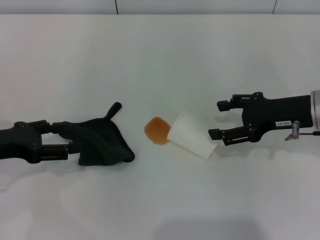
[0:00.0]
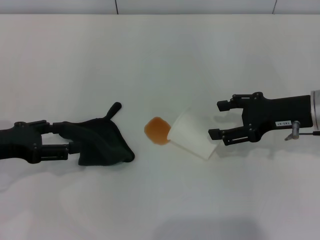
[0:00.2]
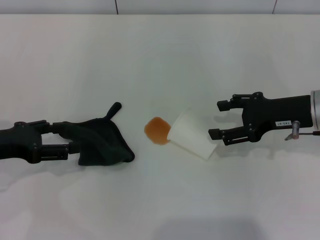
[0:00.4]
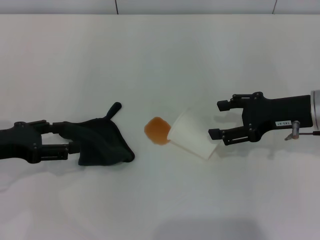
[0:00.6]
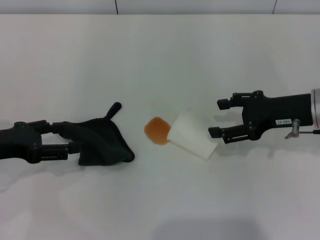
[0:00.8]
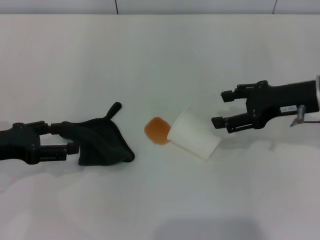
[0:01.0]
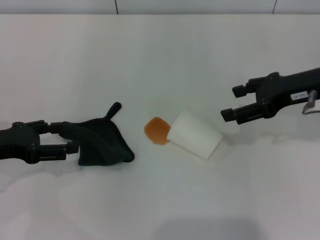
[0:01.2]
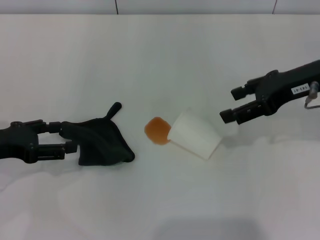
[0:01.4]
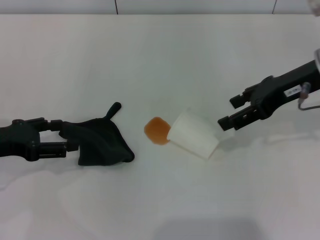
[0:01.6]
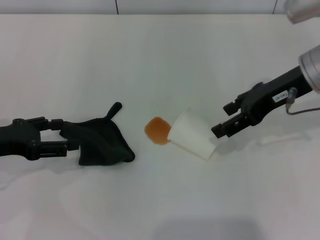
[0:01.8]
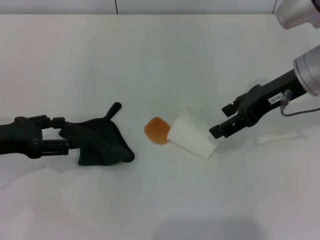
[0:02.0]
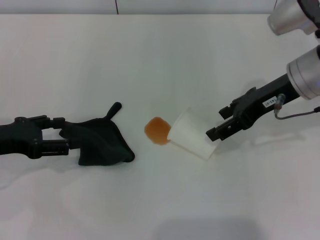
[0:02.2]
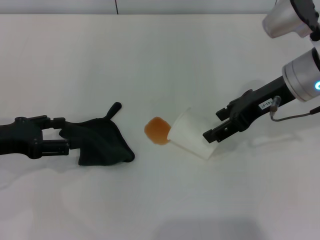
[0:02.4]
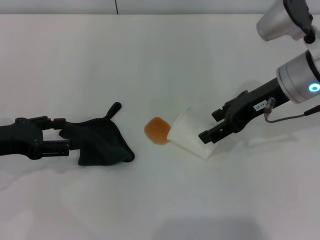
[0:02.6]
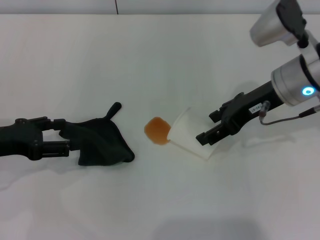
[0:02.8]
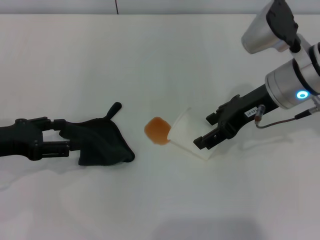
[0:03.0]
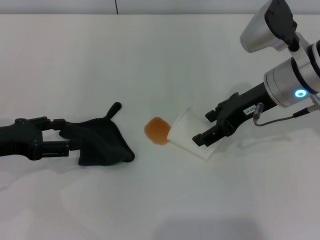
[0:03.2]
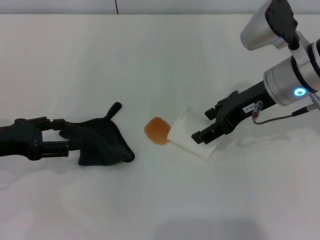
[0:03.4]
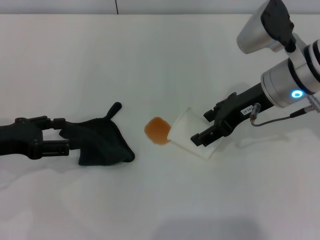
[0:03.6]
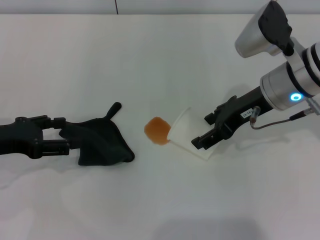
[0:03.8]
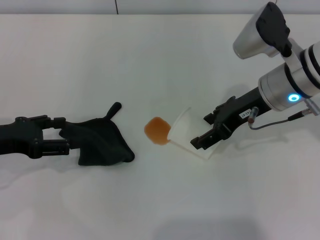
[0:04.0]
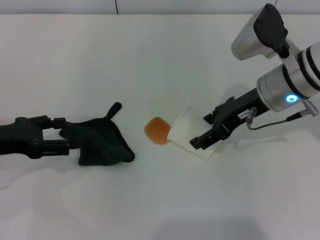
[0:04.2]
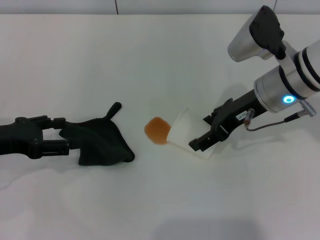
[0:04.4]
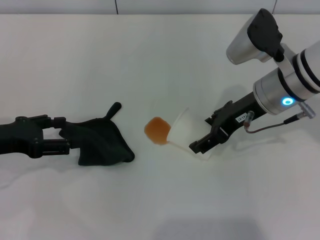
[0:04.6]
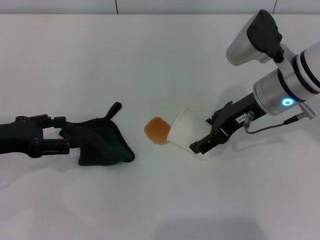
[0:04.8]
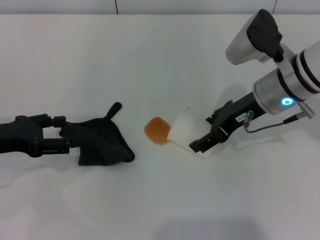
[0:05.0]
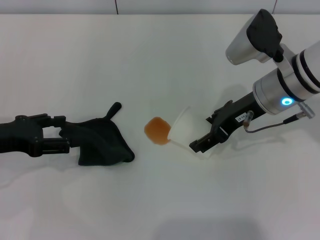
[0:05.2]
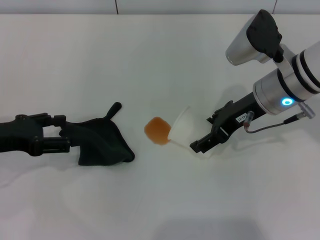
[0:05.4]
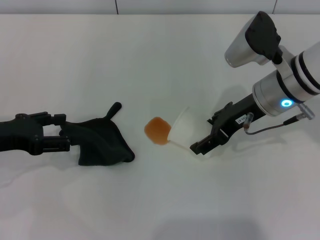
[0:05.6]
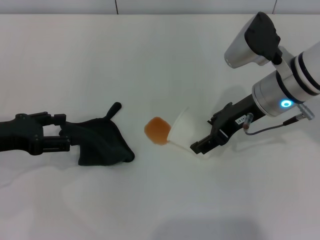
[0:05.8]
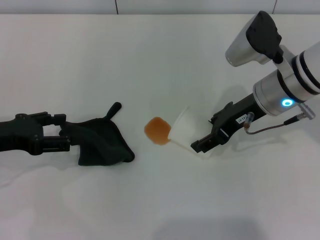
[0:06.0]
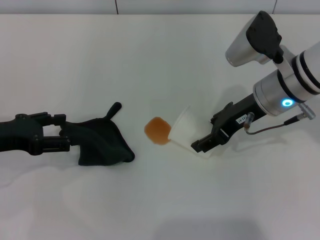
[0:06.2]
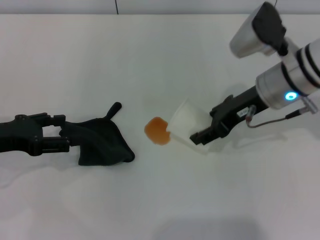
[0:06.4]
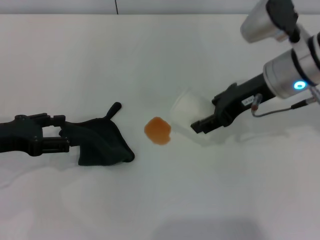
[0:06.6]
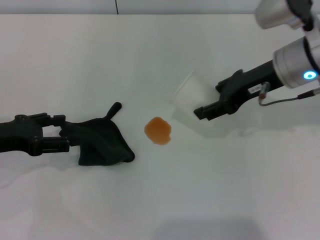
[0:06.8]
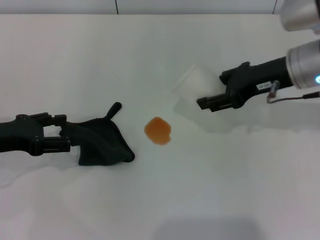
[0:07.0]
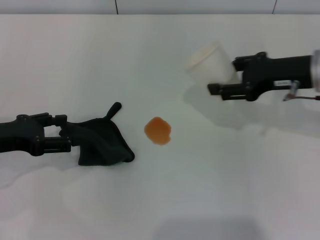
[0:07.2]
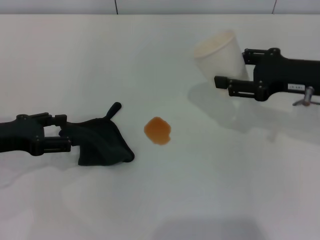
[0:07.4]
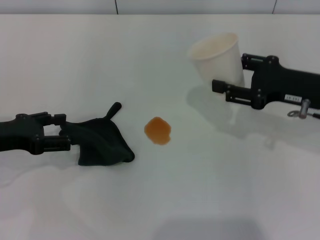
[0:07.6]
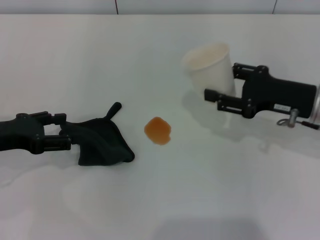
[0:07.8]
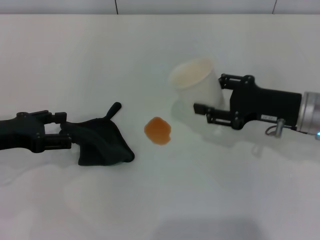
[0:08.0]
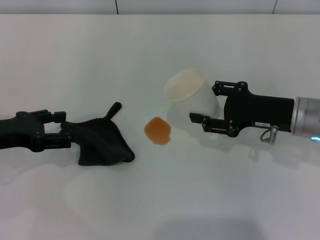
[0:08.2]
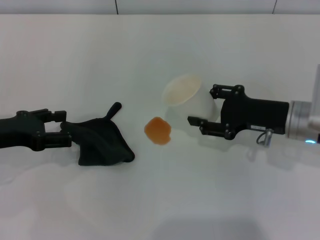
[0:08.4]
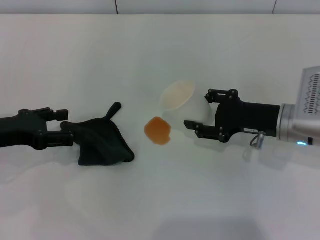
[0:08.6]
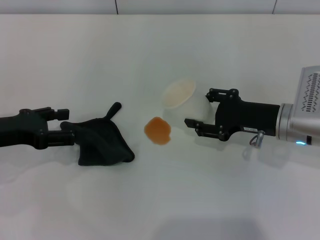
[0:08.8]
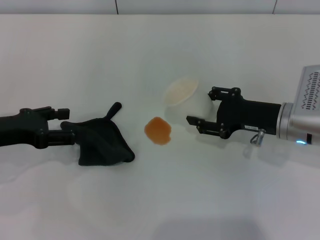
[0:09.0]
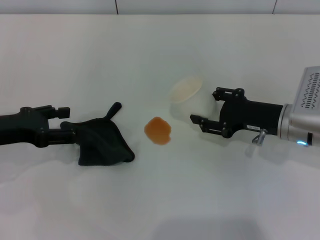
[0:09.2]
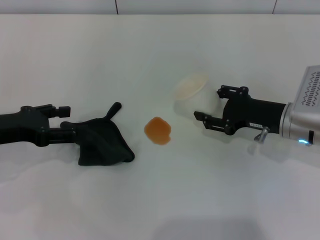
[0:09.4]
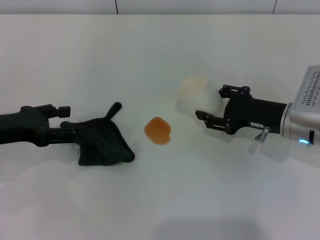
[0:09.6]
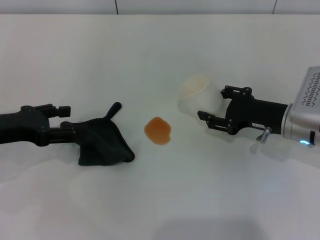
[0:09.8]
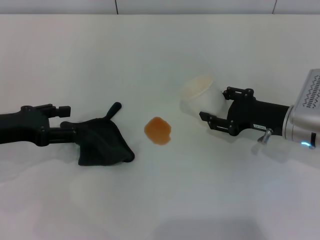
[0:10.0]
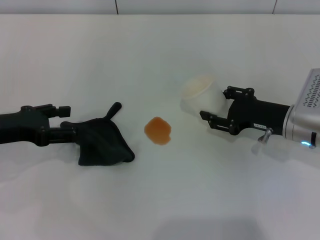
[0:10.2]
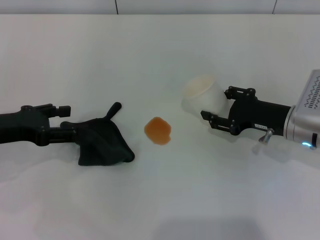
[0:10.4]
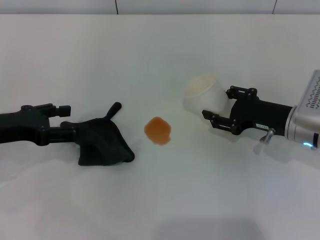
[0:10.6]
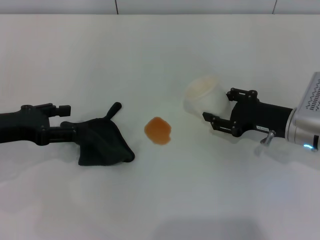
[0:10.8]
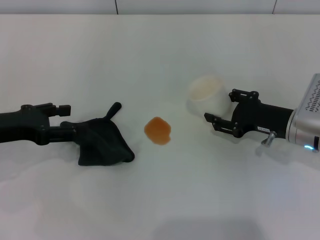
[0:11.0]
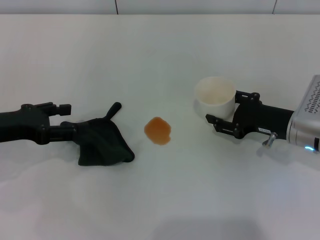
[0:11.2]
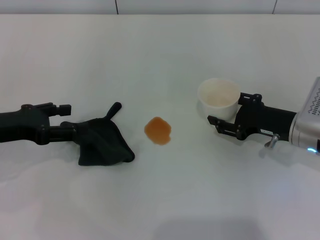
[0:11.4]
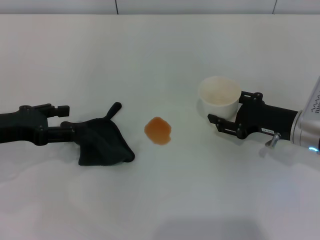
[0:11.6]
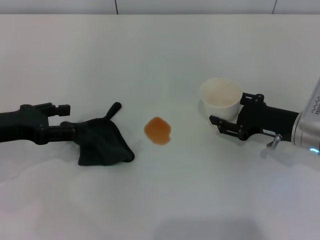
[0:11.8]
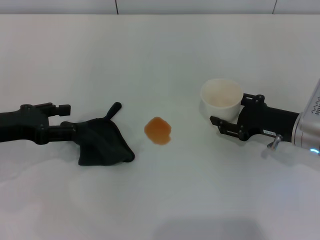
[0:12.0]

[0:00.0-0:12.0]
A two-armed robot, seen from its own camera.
Step, 0:00.0 to 0:05.8: Grasp the paper cup with the right gripper.
0:00.0 to 0:01.6: The right gripper travels upward by approximately 10 cm.
0:01.6 to 0:03.0: The right gripper goes about 5 cm to the left.
0:03.0 to 0:04.4: The grippers stay close to where they were, moving slightly.
0:04.4 to 0:06.0: The right gripper closes.
0:06.0 to 0:07.6: The right gripper travels to the right by some 10 cm, and closes up.
0:07.6 to 0:09.0: The right gripper travels downward by approximately 5 cm.
0:09.0 to 0:12.0: The grippers stay close to where they were, moving slightly.

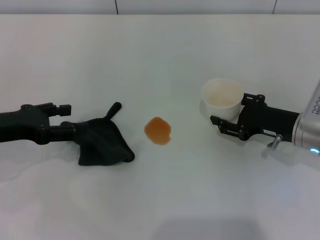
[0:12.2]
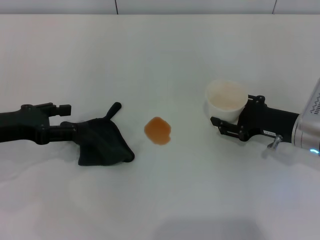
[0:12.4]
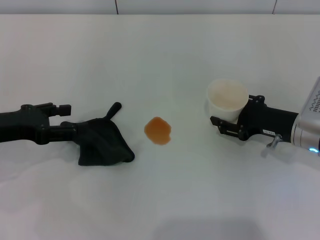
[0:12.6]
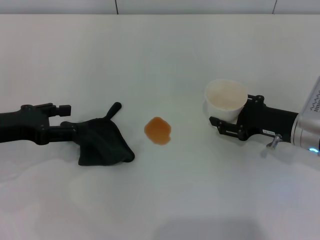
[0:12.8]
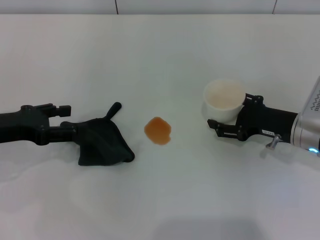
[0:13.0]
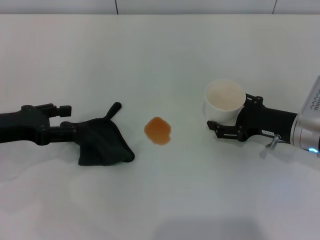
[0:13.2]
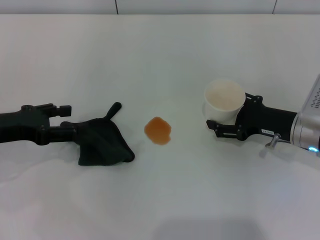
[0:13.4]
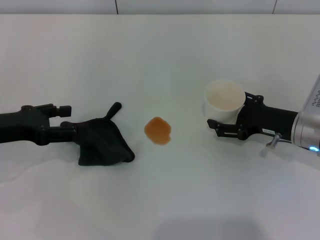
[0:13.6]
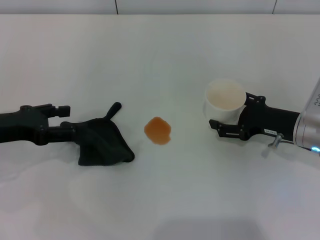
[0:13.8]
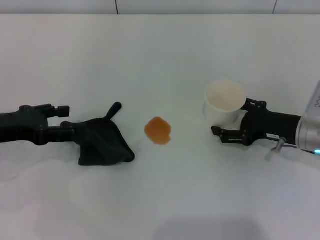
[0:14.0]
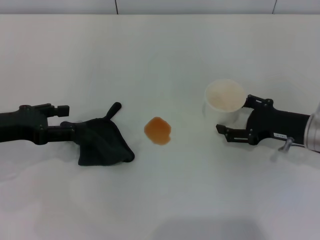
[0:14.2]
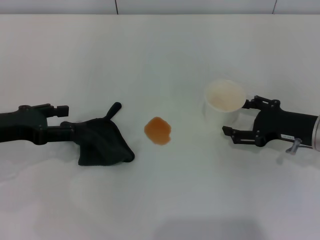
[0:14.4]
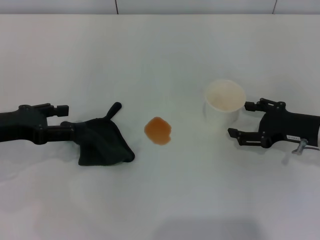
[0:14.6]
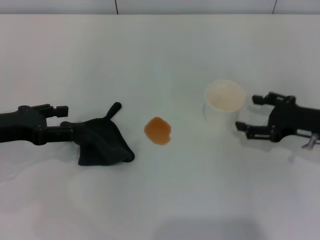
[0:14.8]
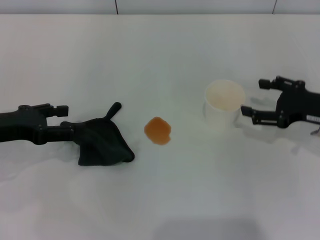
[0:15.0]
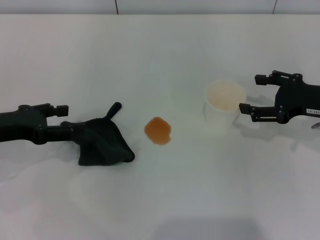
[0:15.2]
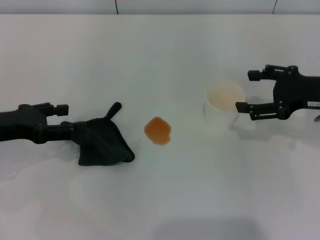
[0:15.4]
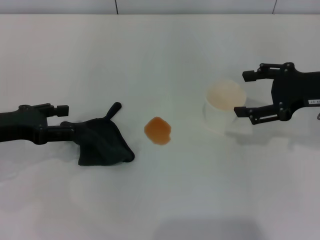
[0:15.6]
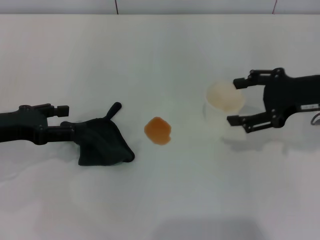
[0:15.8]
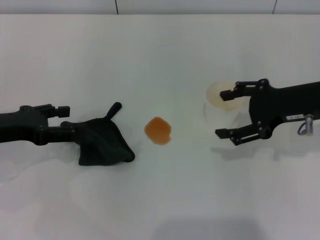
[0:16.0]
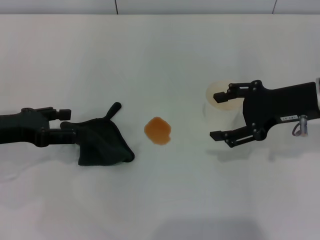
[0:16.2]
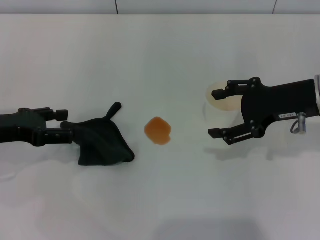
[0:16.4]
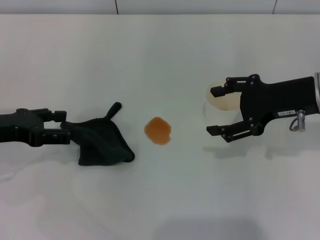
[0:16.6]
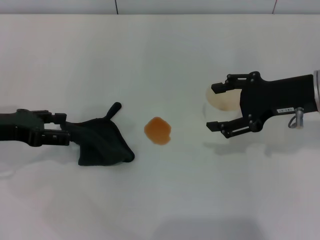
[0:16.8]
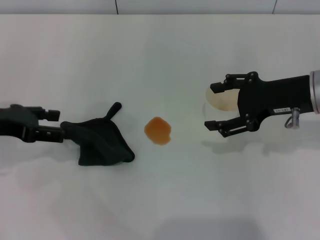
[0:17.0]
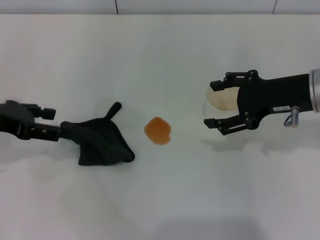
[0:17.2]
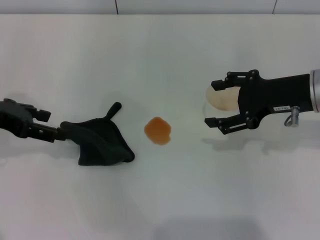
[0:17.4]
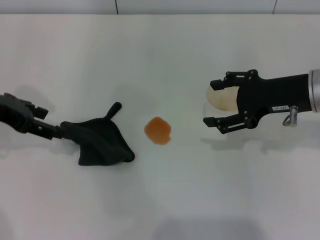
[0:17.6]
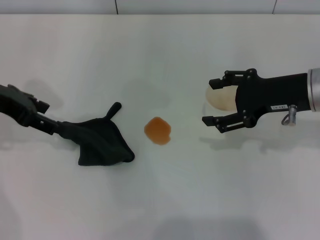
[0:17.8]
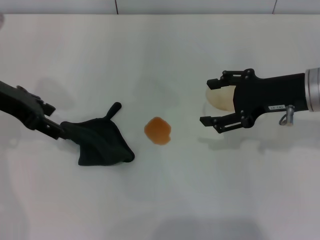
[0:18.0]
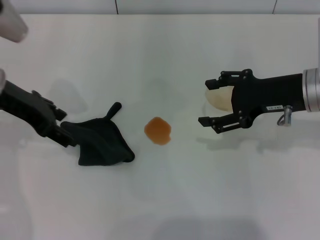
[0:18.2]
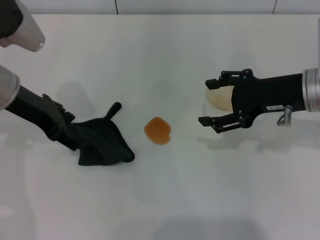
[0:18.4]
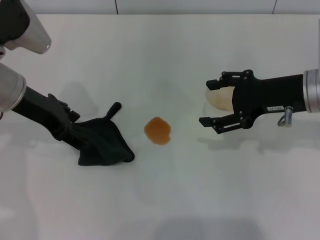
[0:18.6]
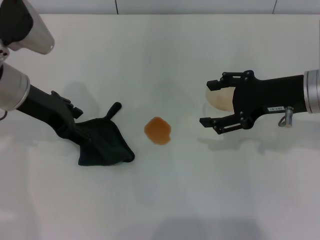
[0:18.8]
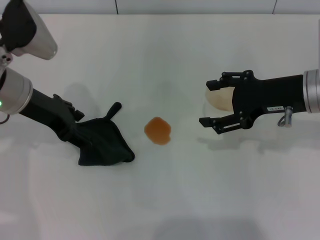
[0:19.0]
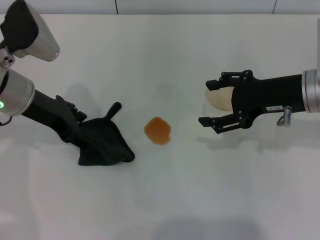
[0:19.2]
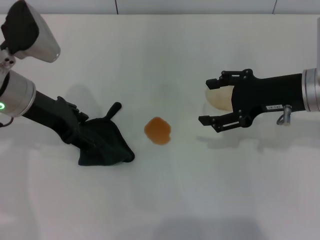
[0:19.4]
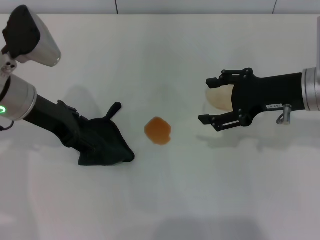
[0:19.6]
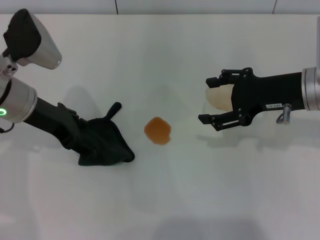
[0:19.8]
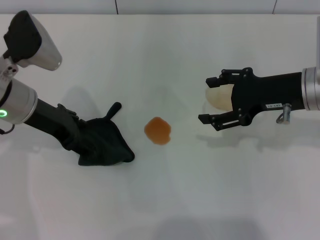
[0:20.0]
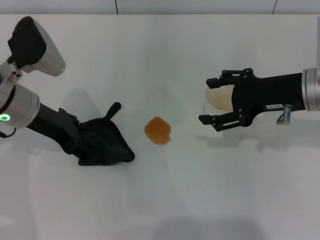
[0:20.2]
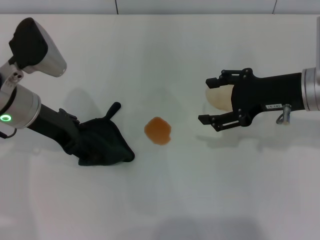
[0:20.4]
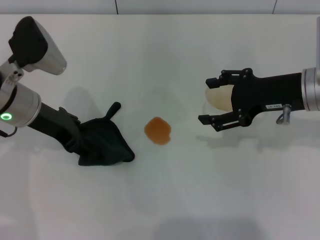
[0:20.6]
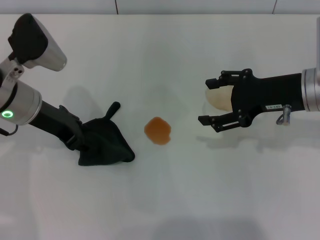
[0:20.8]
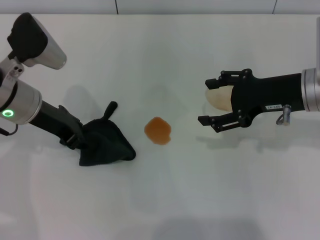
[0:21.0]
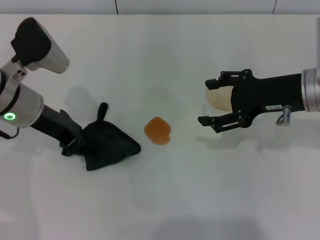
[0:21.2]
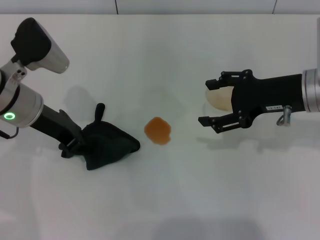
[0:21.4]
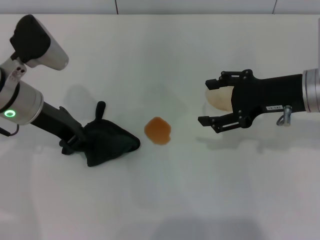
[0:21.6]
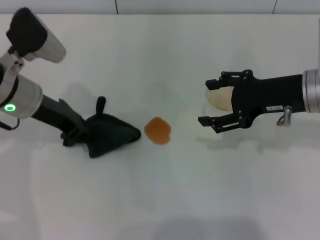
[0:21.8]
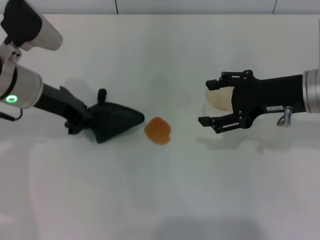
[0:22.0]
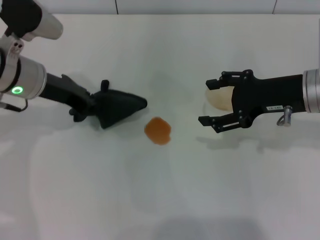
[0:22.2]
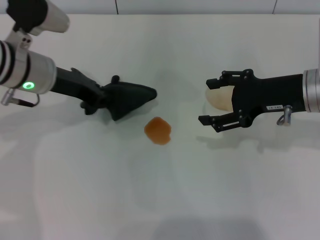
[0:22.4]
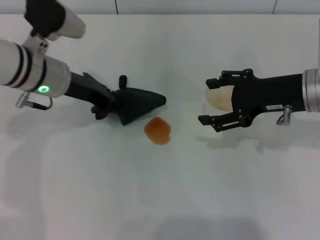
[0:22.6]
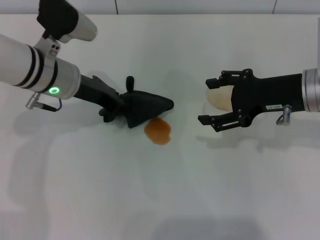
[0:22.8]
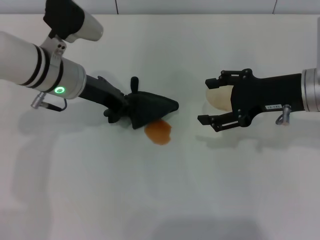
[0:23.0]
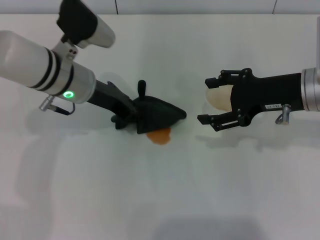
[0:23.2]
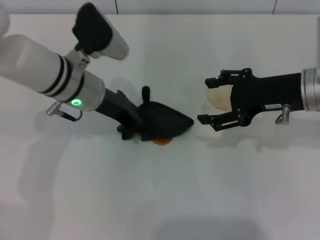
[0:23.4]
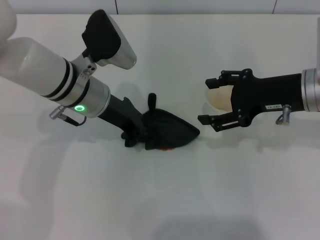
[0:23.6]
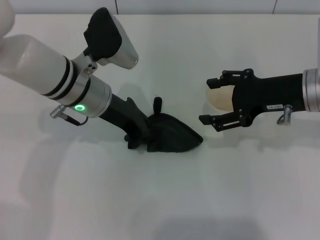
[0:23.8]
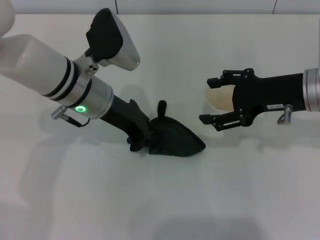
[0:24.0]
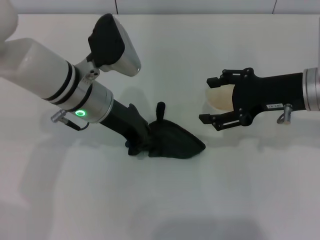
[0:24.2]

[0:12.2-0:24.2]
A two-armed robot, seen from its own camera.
Step, 0:12.2 to 0:14.4: Stand the paper cup upright with the right gripper.
Step, 0:14.6 to 0:21.4: Grasp the rag with the left gripper.
0:12.2 to 0:13.8: The right gripper opens up.
0:13.8 to 0:15.2: The right gripper goes about 5 cm upward.
0:15.2 to 0:16.6: The right gripper moves to the left and upward, roughly 10 cm.
0:16.6 to 0:18.2: The left gripper moves to the right, forward and upward, about 10 cm.
0:18.2 to 0:19.8: The grippers move only a little.
0:19.8 to 0:21.2: The left gripper closes up.
0:21.2 to 0:22.6: The left gripper closes.
0:22.6 to 0:24.2: The left gripper goes about 5 cm to the right.
